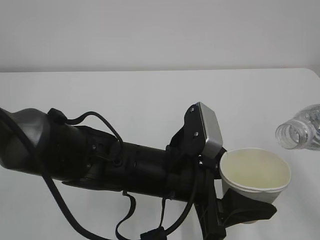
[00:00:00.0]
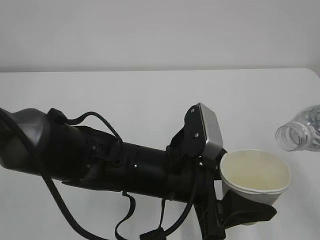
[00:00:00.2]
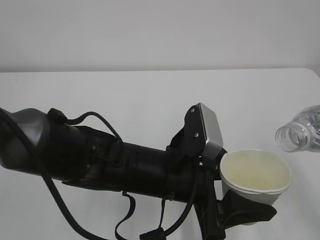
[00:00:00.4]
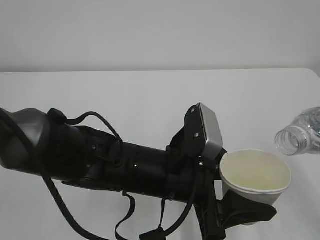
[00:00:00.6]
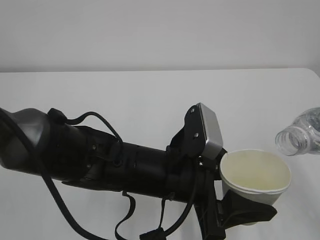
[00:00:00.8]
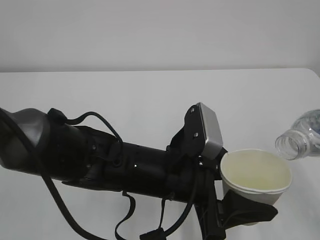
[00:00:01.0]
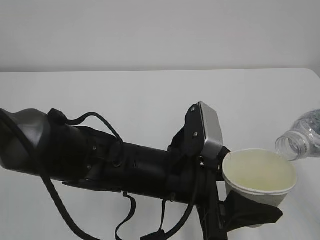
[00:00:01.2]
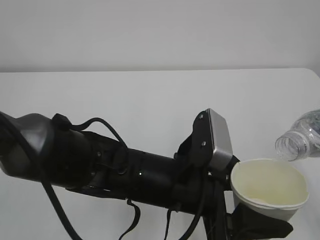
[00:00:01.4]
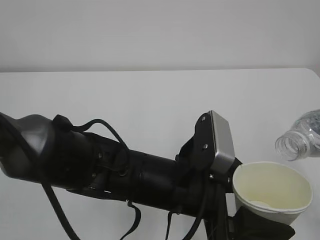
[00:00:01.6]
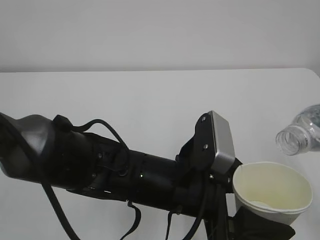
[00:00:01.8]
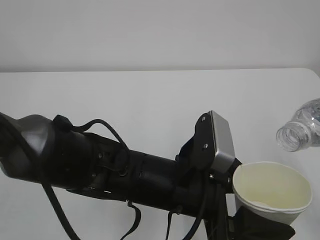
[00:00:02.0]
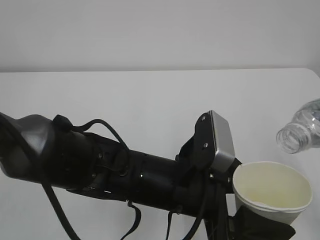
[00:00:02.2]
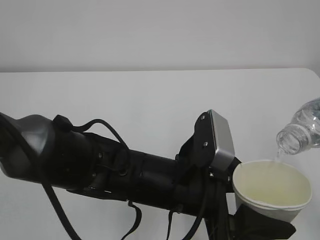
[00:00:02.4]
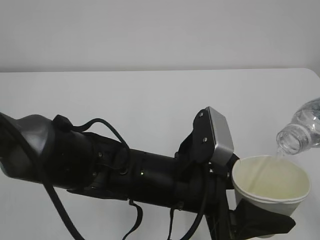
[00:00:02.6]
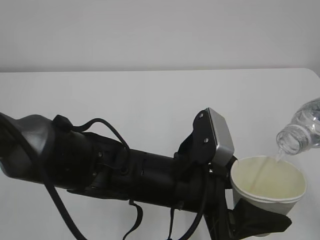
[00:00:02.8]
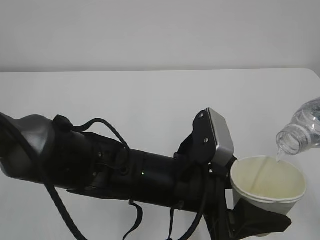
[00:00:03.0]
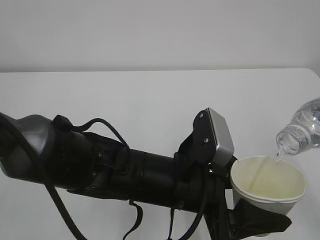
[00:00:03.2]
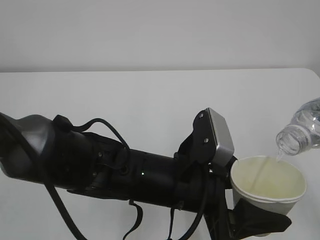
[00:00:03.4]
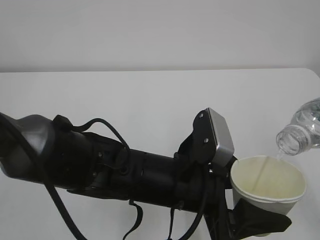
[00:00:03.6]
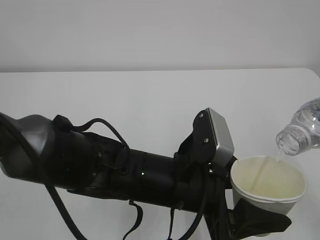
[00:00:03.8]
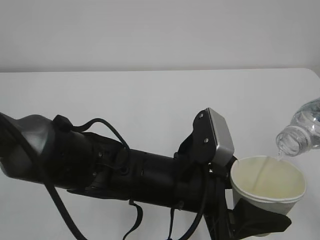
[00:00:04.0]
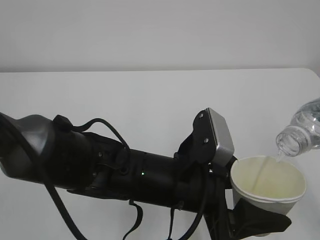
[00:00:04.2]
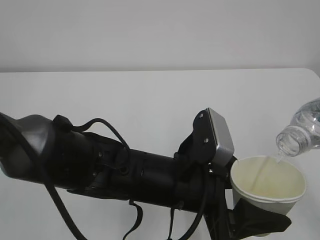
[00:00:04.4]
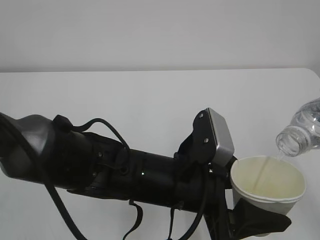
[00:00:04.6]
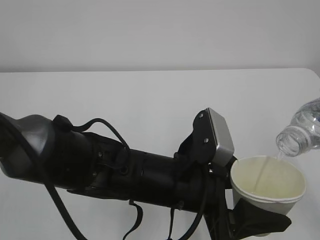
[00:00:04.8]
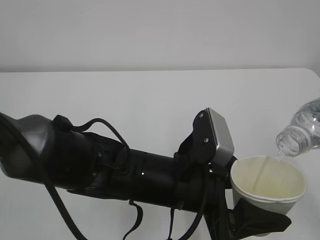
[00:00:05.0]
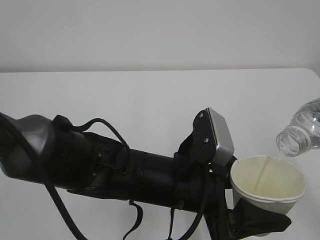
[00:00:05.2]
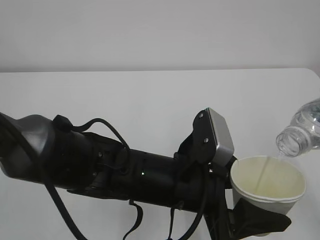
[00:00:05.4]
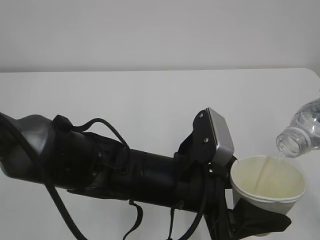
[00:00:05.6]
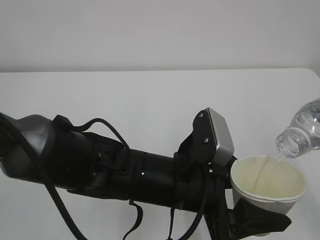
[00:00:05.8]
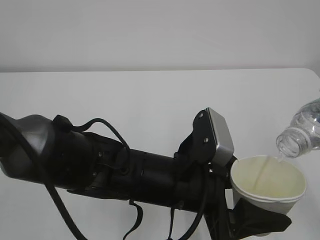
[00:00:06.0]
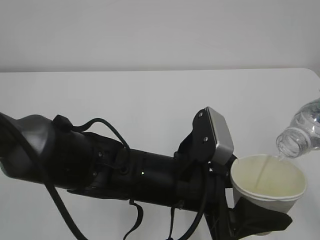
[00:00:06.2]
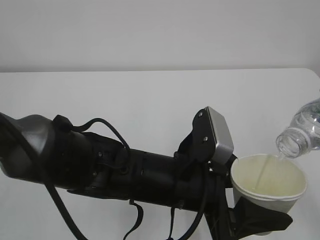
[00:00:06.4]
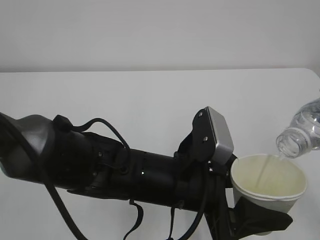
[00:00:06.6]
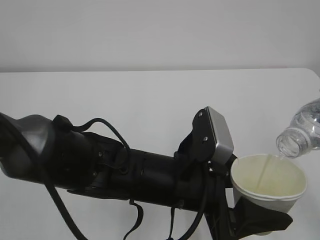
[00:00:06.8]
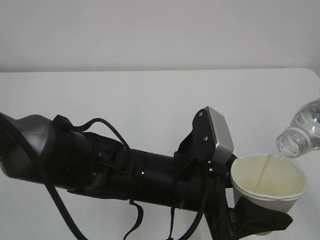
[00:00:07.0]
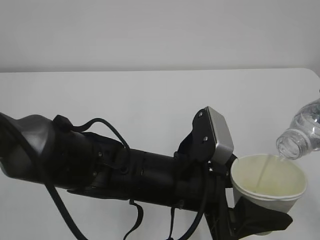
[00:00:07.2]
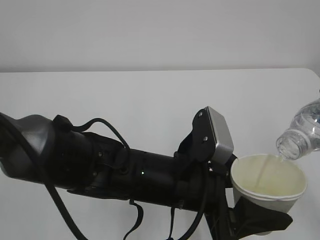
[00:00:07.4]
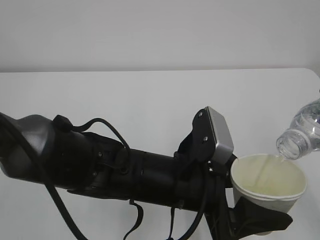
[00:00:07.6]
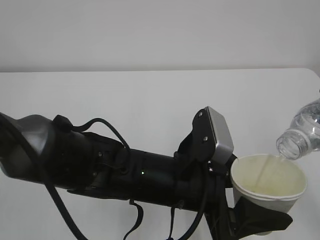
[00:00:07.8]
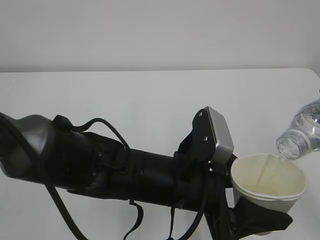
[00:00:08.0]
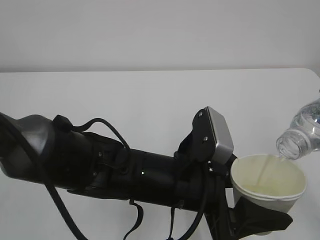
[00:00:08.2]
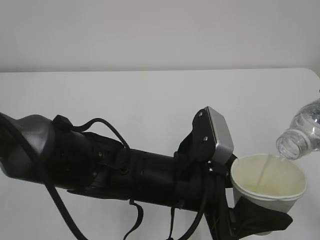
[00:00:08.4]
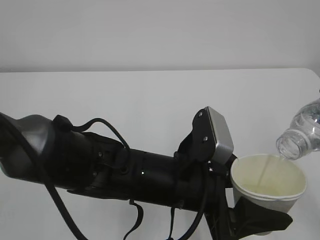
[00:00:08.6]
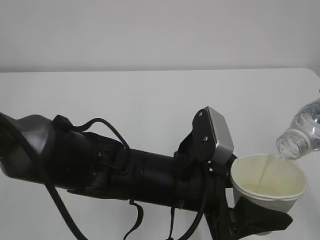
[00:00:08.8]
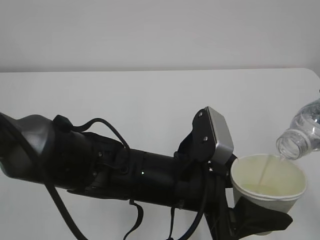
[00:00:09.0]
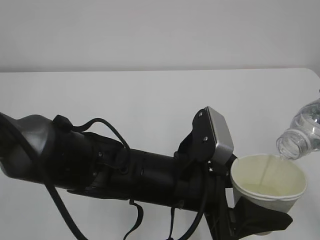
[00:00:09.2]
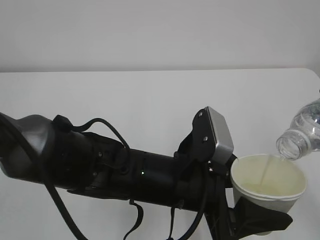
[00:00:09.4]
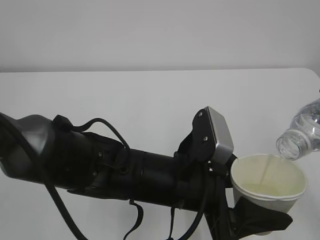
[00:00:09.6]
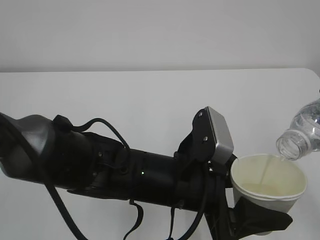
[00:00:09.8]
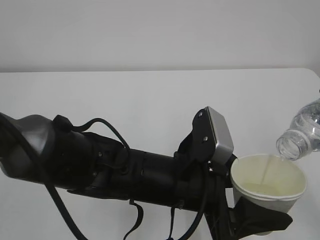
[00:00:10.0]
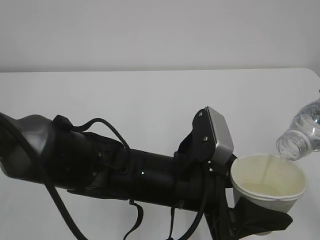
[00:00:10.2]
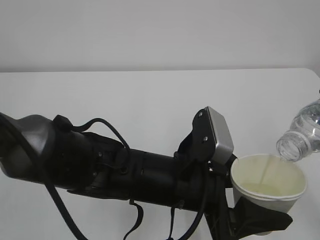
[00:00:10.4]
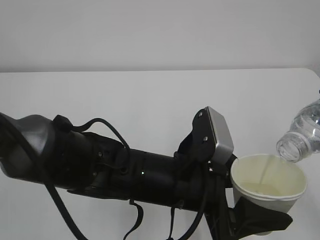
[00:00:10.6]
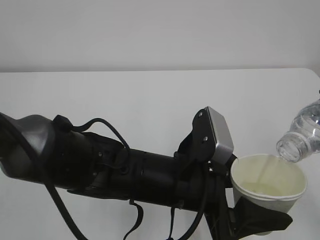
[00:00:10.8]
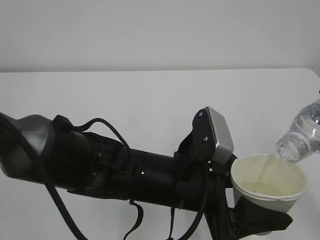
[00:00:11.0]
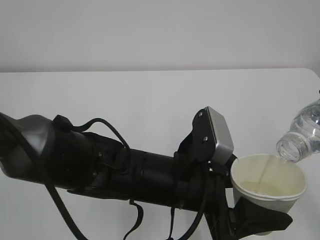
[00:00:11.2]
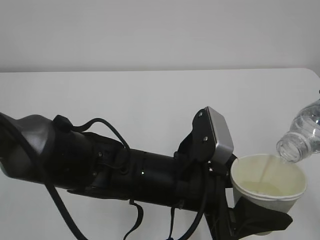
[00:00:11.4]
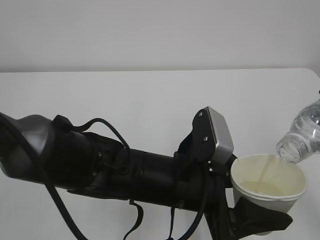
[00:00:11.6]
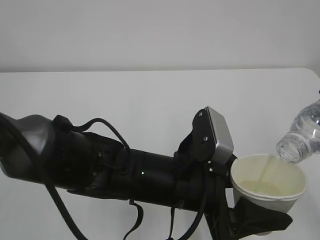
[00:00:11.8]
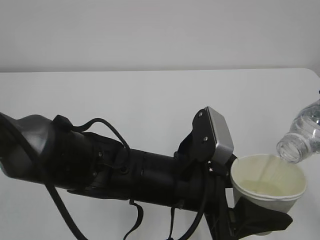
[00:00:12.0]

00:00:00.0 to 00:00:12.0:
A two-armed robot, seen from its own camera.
00:00:00.0 to 00:00:03.0: The grippers move only a little.
00:00:03.0 to 00:00:12.0: Both grippers stay put.

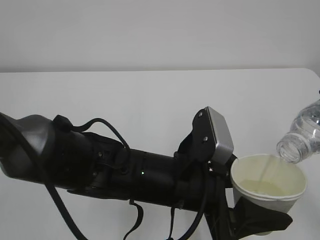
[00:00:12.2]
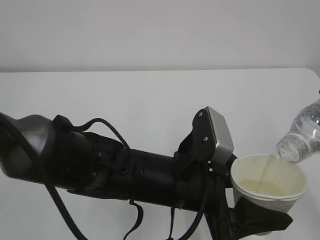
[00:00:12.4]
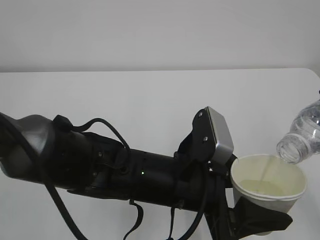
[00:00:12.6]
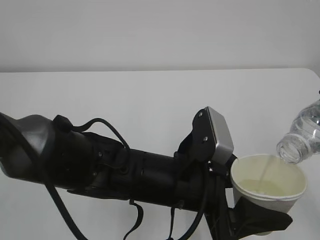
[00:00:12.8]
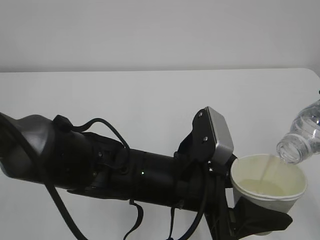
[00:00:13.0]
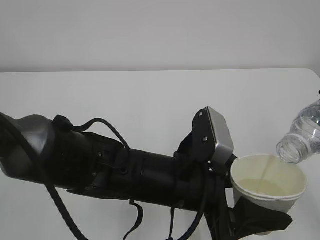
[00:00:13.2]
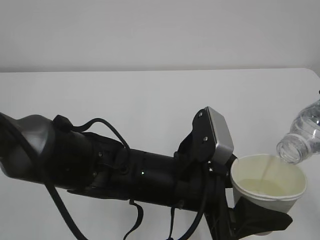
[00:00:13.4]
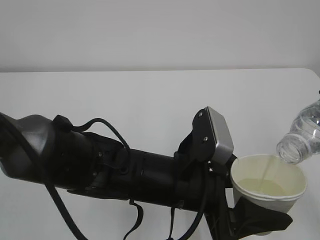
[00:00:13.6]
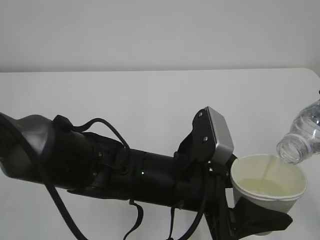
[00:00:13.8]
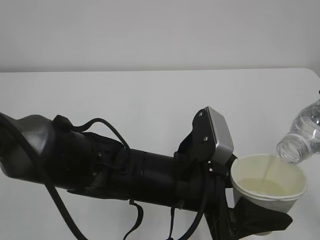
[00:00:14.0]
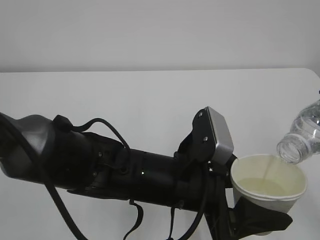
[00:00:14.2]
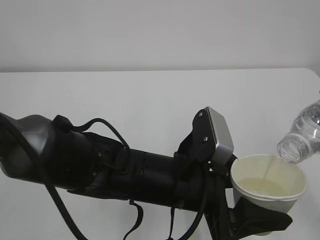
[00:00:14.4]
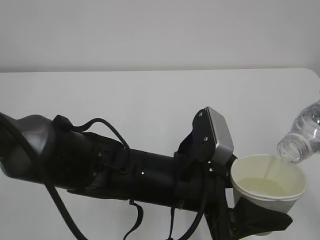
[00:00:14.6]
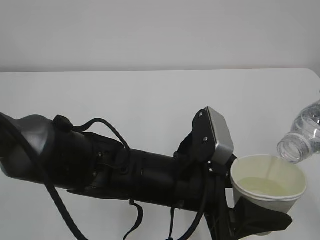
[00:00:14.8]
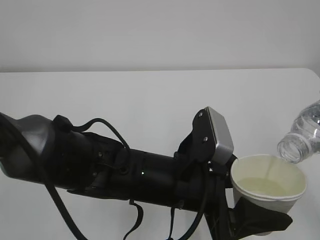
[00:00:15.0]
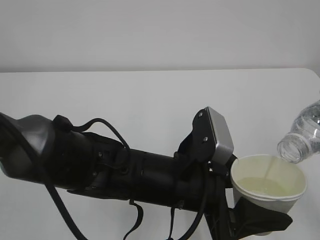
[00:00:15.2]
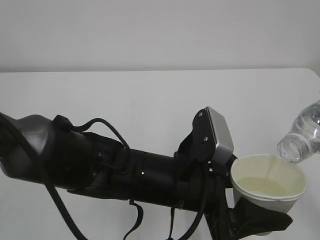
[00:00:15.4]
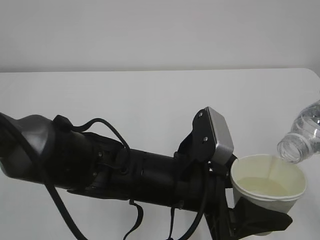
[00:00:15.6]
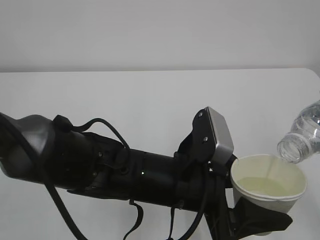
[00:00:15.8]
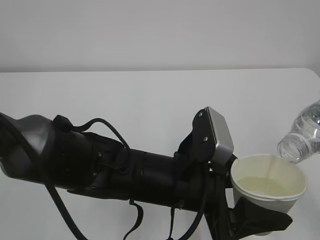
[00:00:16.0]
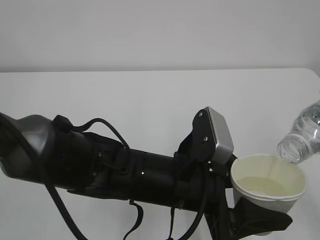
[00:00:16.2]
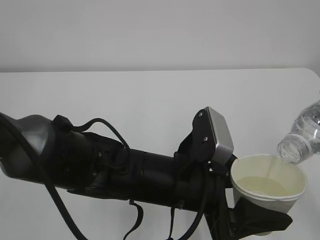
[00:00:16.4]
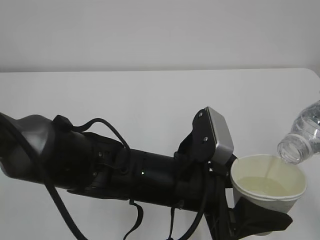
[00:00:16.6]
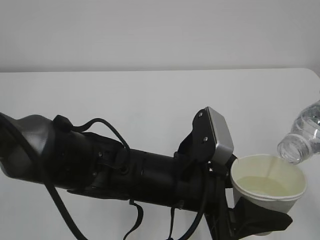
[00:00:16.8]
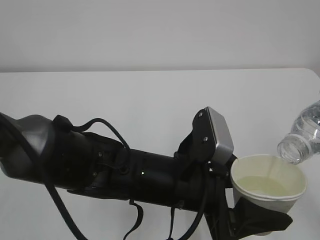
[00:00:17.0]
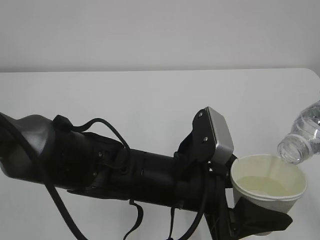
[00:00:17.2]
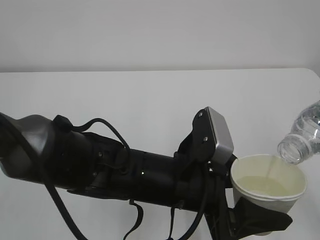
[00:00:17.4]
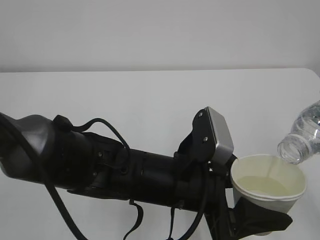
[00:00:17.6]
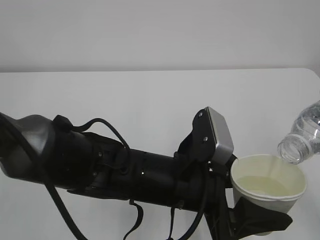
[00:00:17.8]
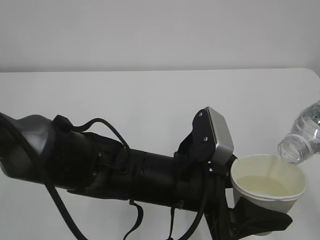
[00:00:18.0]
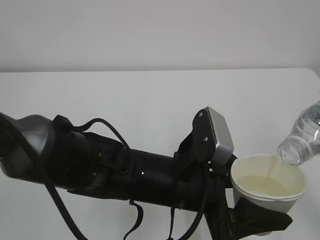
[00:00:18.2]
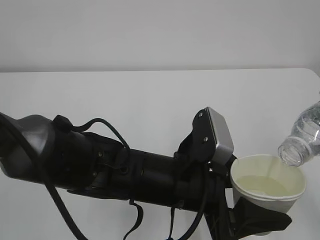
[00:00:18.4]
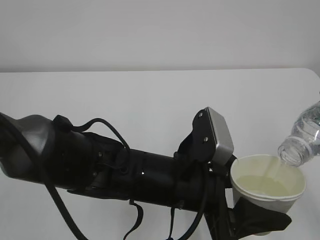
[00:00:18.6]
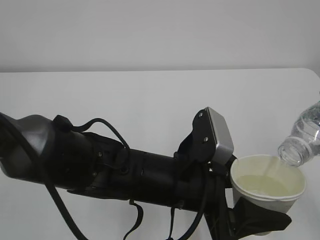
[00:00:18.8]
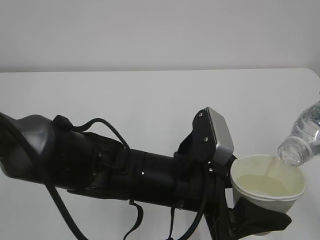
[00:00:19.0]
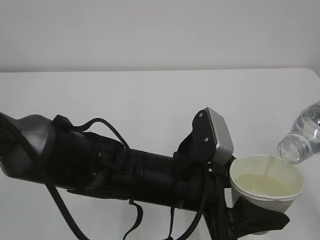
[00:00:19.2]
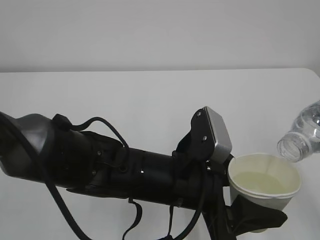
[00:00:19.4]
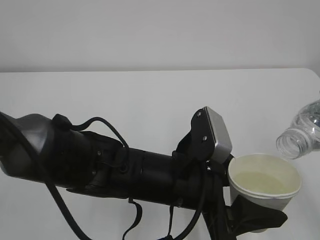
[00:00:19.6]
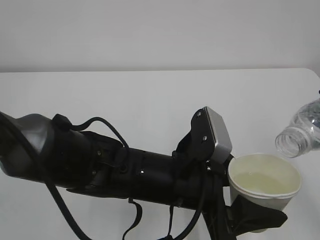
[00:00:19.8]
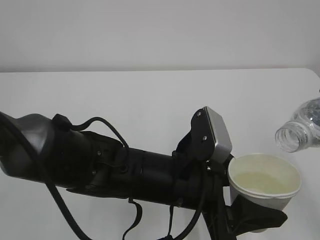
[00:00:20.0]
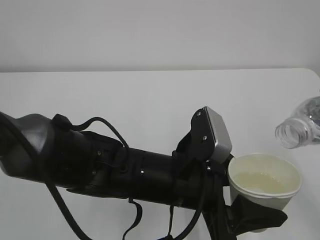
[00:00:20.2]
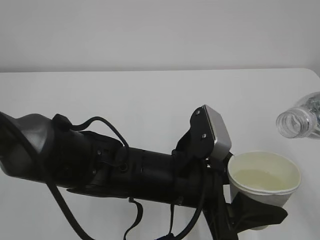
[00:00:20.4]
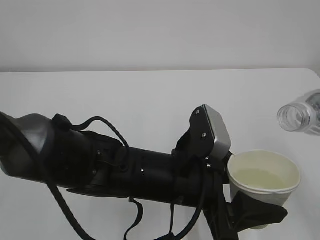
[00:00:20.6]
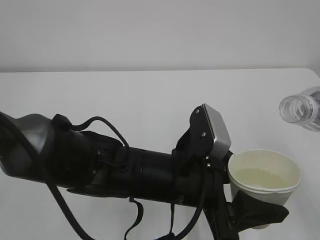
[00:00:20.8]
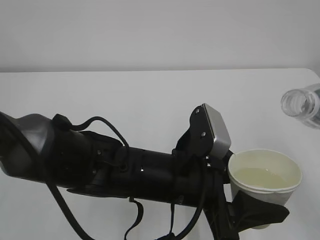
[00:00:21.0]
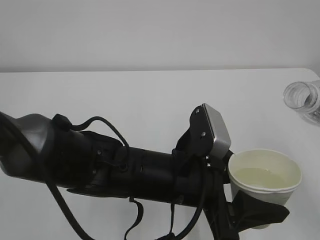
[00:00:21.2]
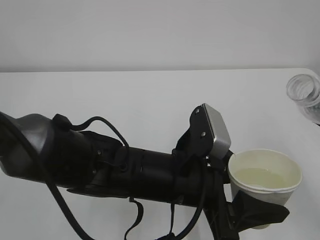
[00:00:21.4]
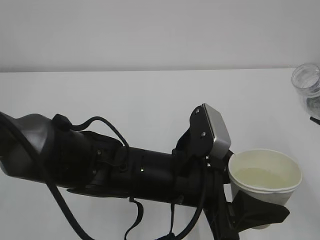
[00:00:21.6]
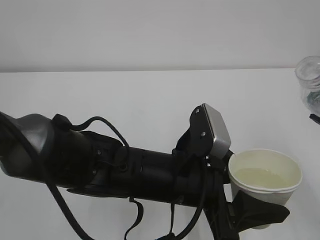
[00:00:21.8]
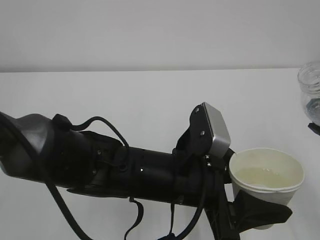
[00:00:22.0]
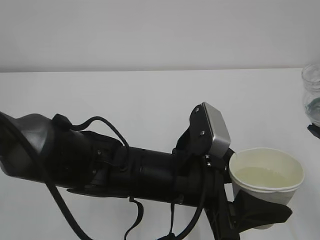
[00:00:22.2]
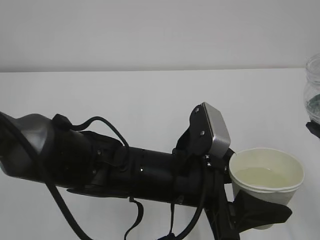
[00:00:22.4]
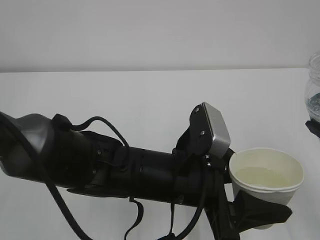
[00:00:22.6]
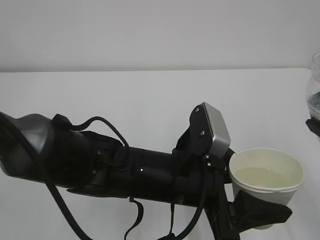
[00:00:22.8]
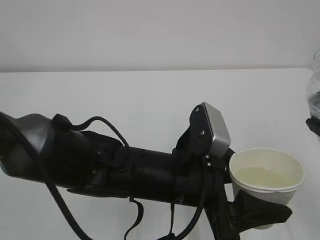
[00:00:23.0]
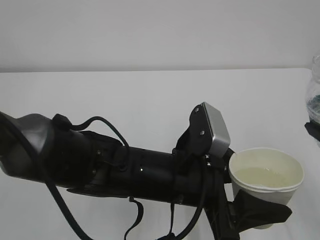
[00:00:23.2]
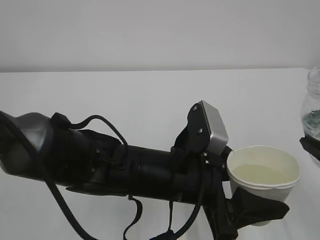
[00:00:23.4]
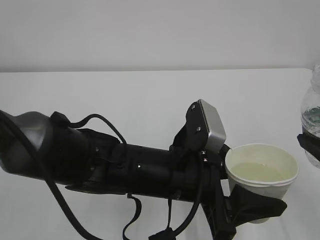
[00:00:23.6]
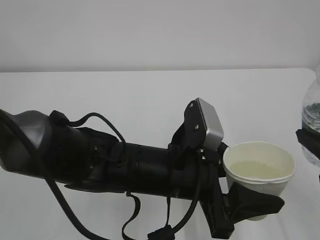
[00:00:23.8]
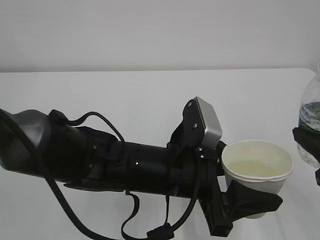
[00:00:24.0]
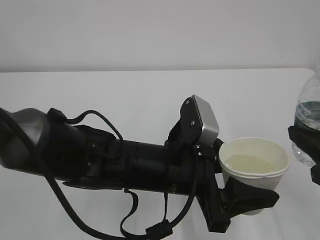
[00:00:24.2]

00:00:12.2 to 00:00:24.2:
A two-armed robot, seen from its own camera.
00:00:12.2 to 00:00:18.2: The two grippers keep their place.
00:00:18.2 to 00:00:19.8: The grippers stay close to where they were, moving slightly.
